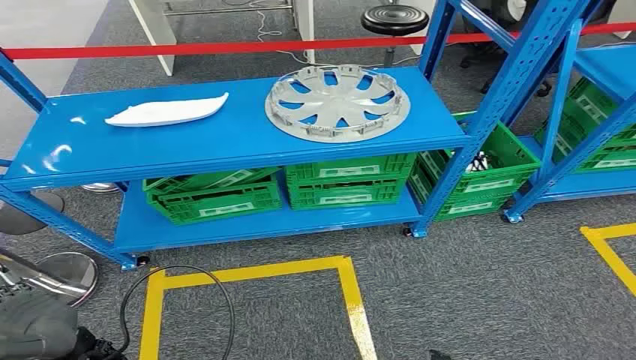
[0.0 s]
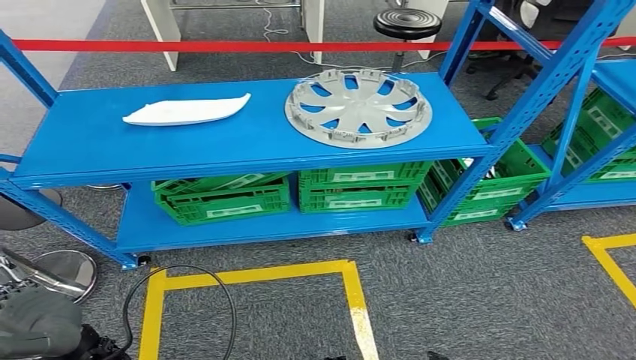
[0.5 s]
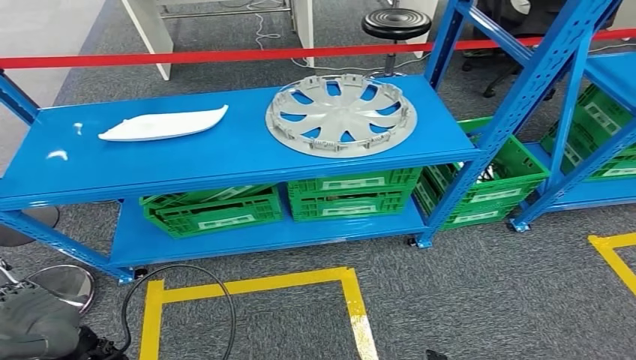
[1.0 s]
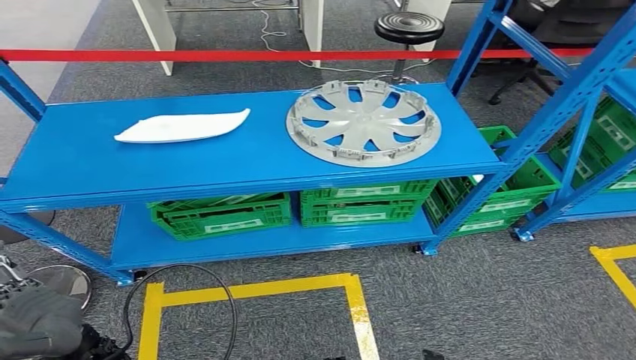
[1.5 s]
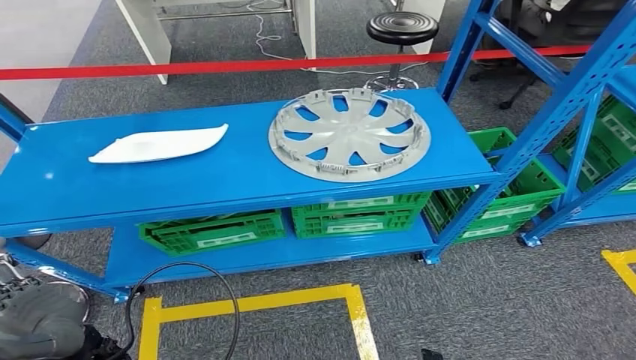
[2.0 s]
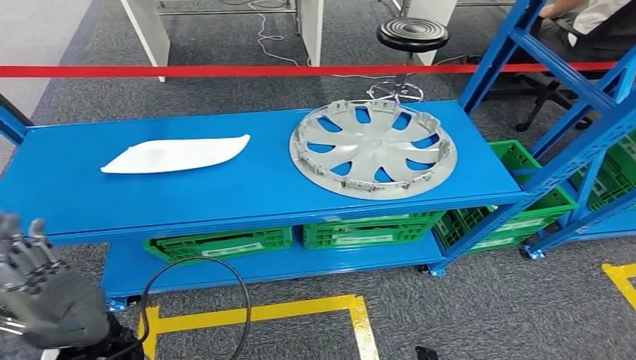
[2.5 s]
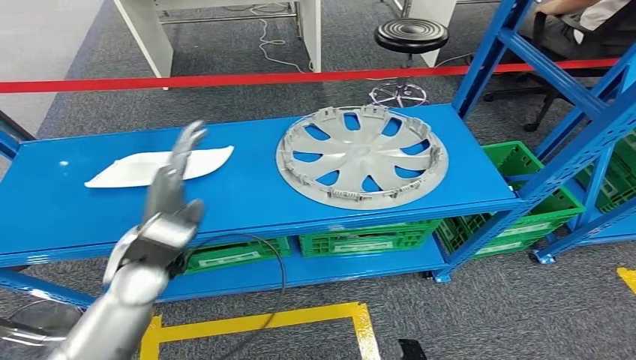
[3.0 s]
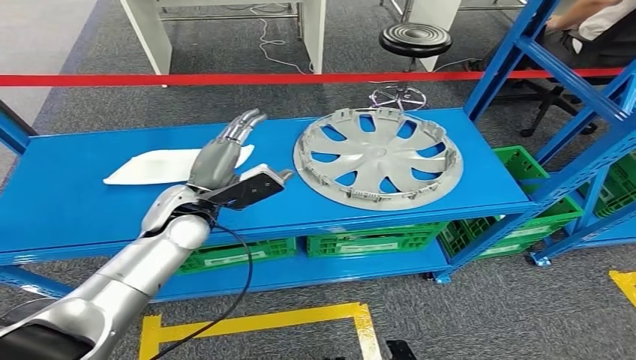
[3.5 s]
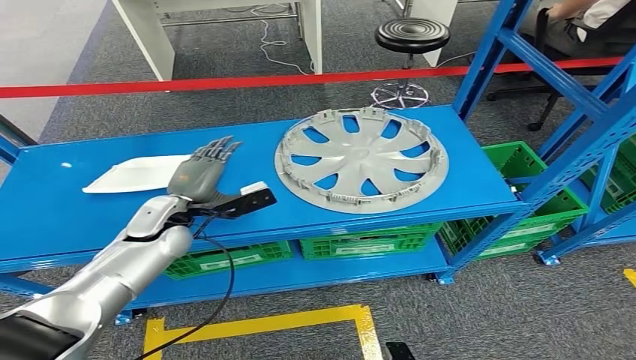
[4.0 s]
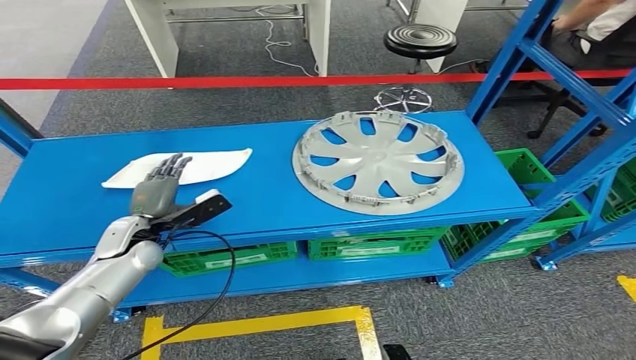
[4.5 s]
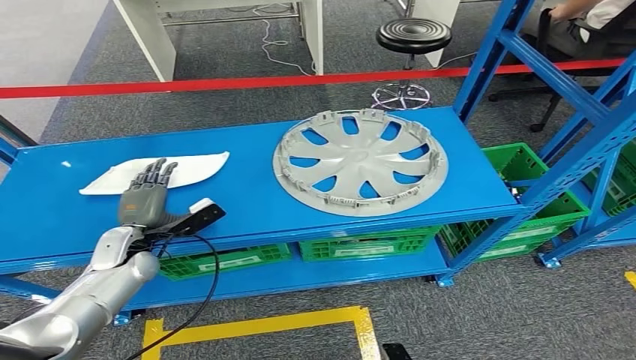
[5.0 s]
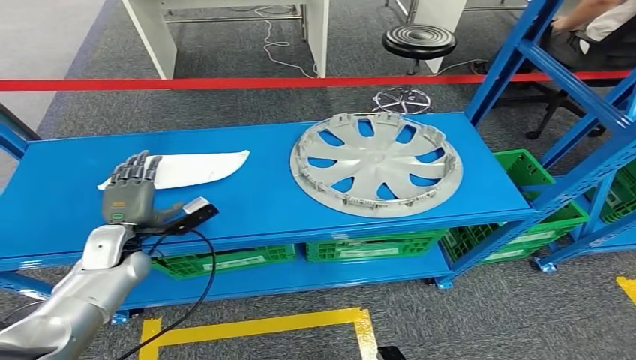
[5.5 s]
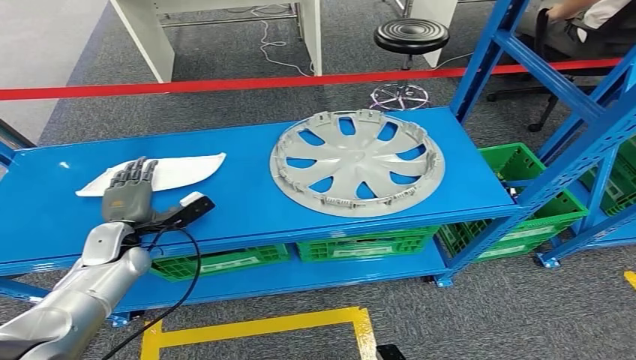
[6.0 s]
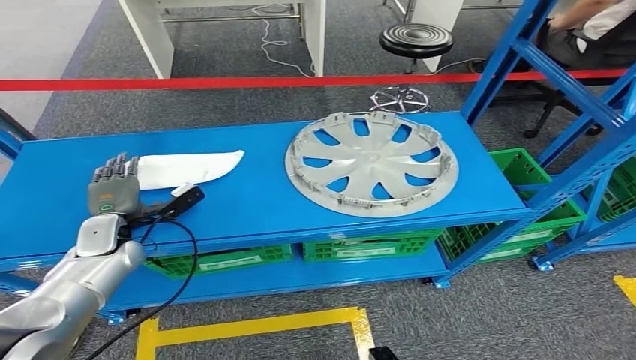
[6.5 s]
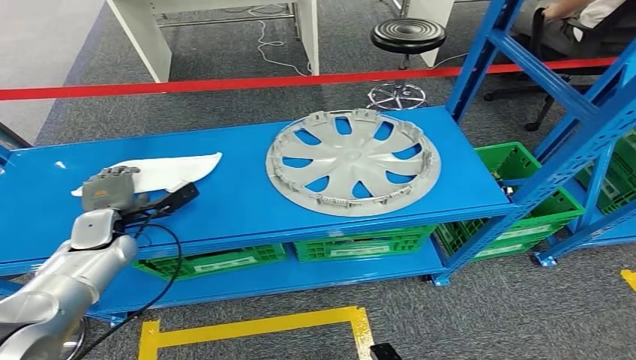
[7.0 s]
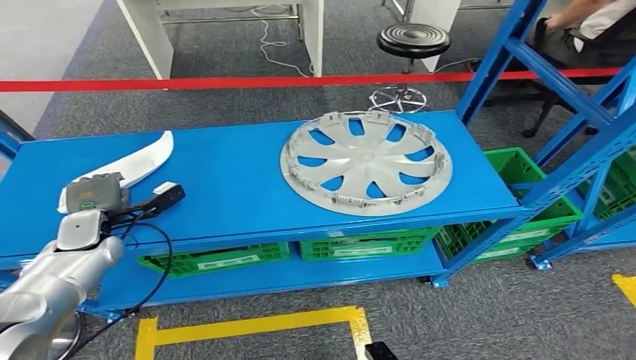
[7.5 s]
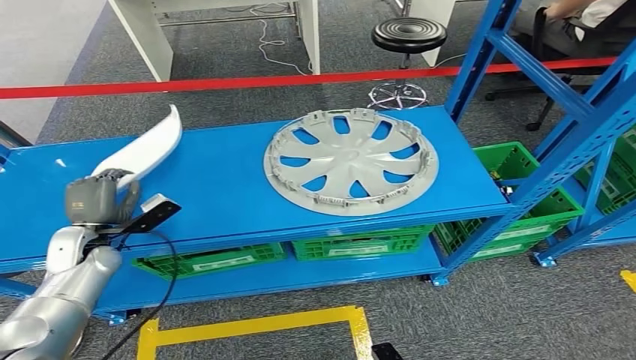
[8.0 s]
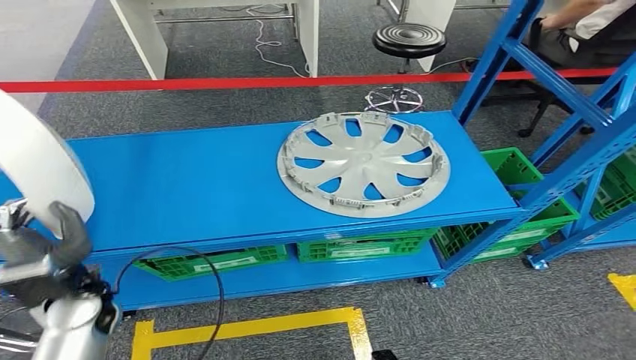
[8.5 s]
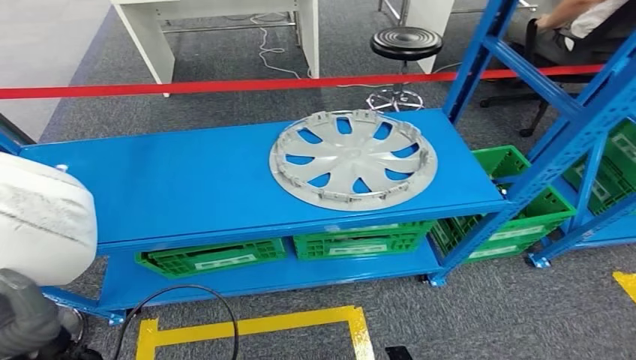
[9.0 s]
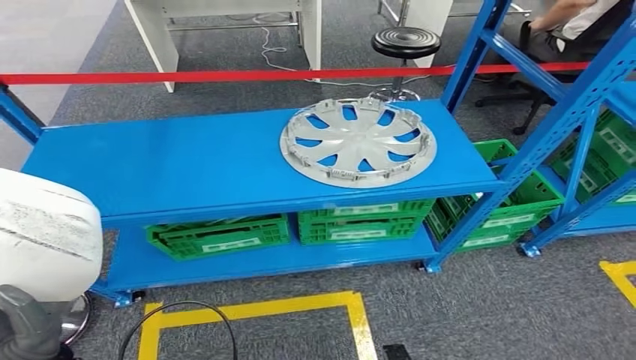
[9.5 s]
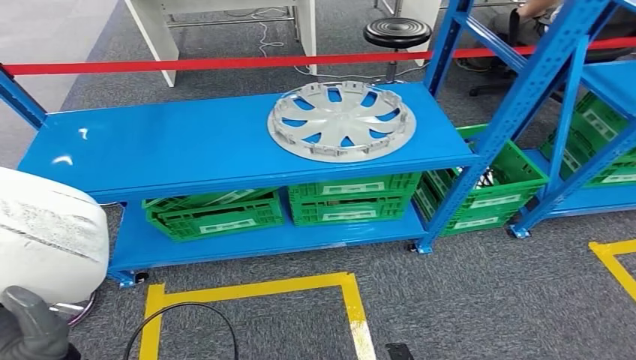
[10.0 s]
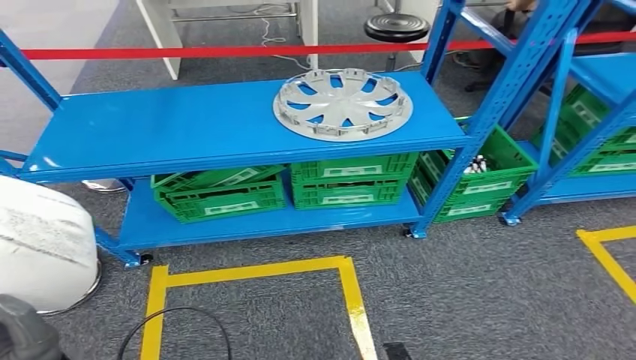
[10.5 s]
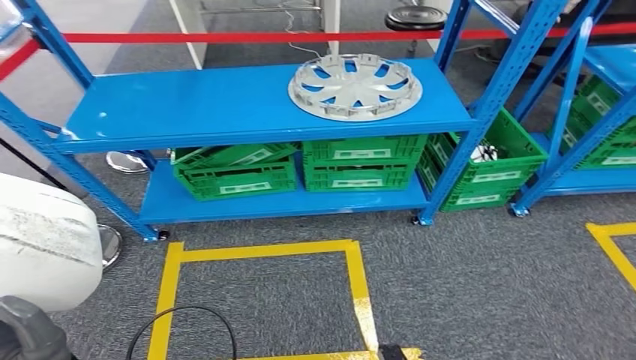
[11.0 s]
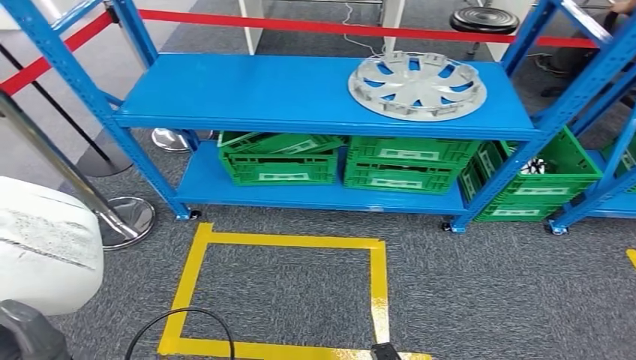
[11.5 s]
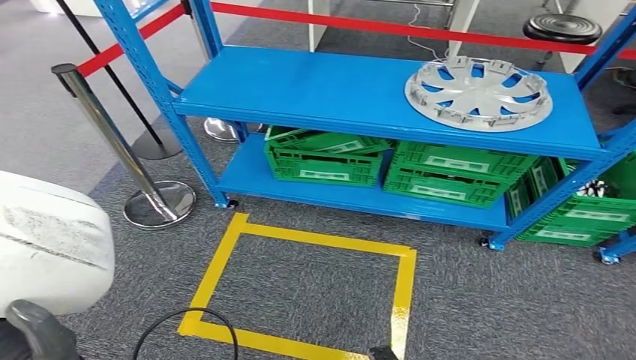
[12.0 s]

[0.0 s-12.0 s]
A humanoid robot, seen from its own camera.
Step, 0.0 to 10.0 s: Pick up the small component from the shelf.
4.0 to 6.0 s: The left hand heads to the left and downward, covering approximately 10 cm.

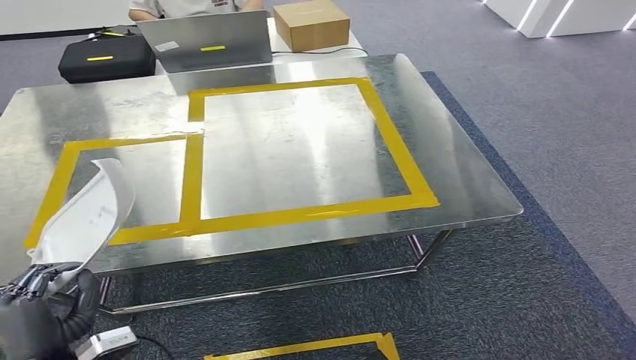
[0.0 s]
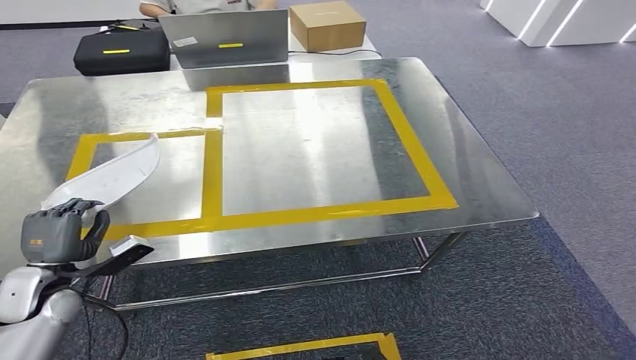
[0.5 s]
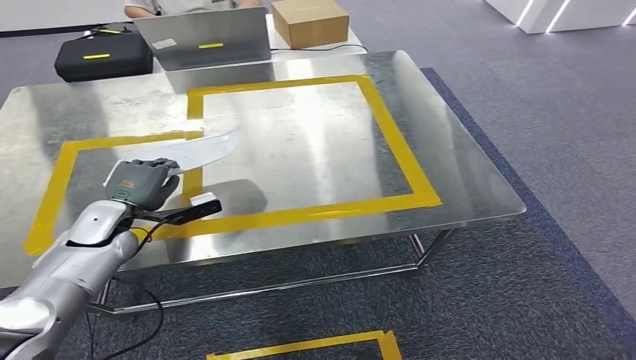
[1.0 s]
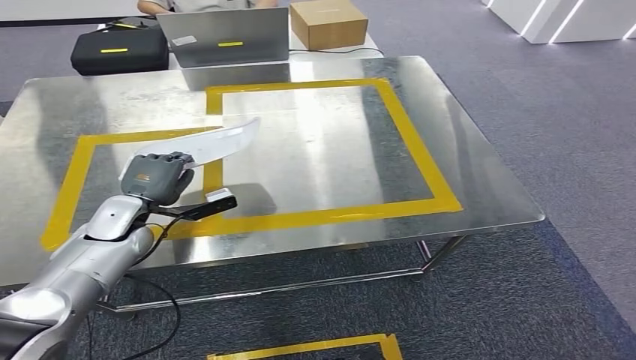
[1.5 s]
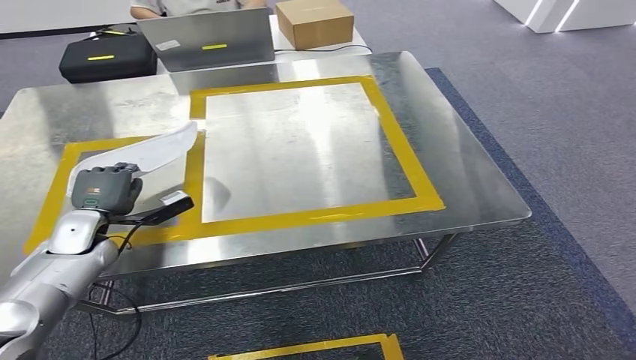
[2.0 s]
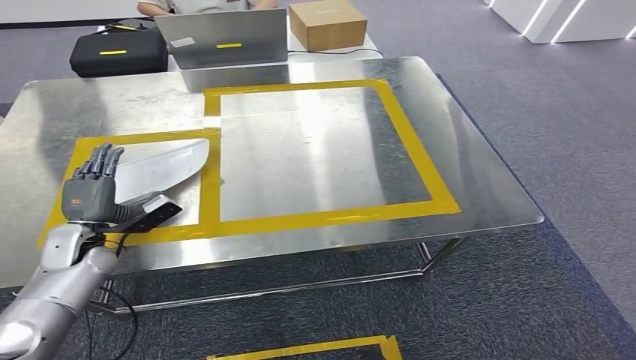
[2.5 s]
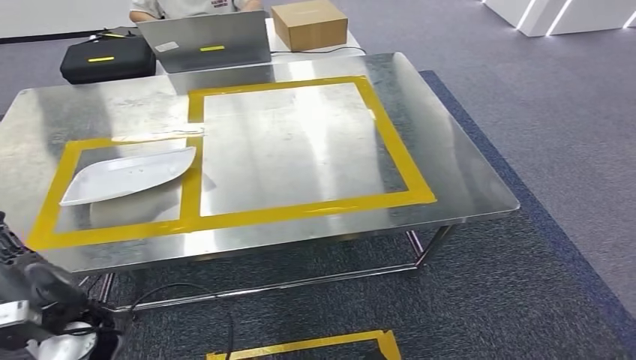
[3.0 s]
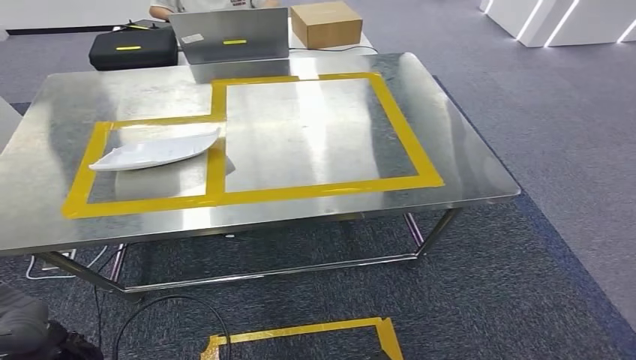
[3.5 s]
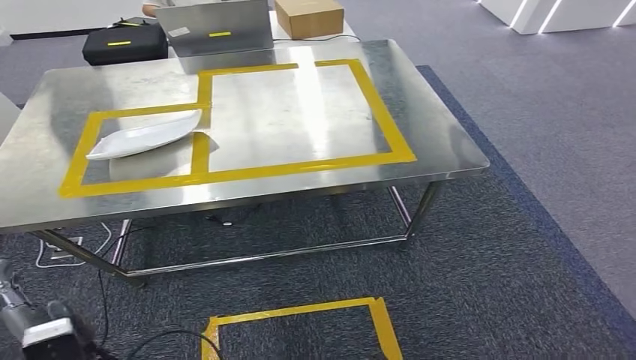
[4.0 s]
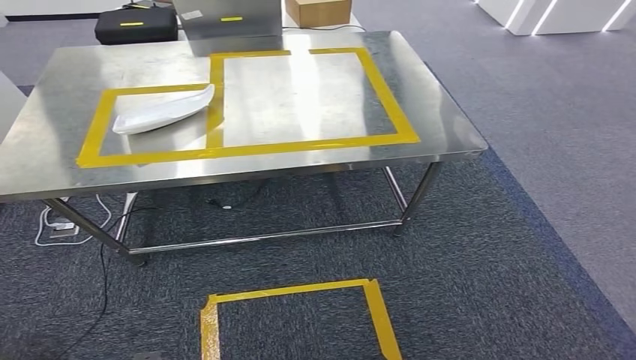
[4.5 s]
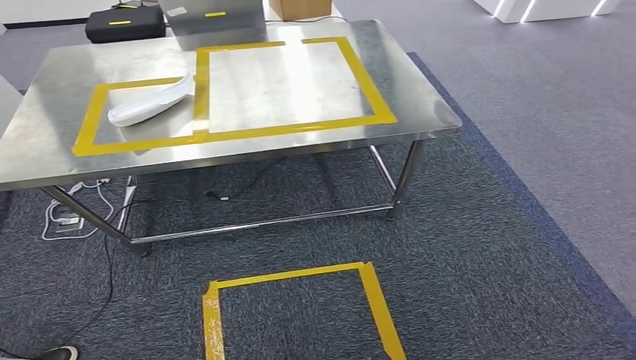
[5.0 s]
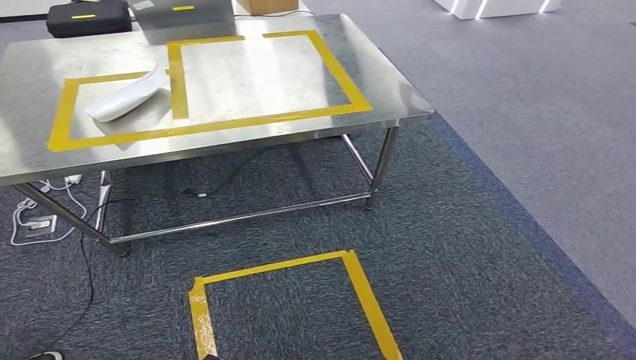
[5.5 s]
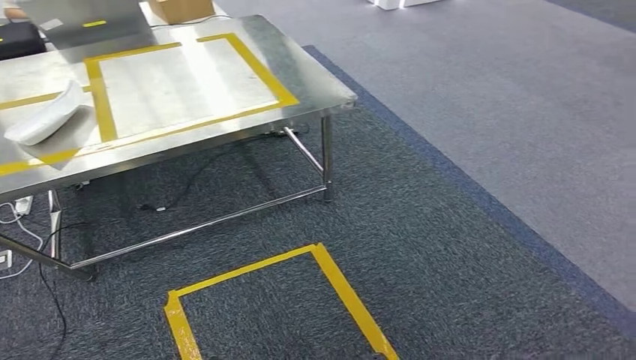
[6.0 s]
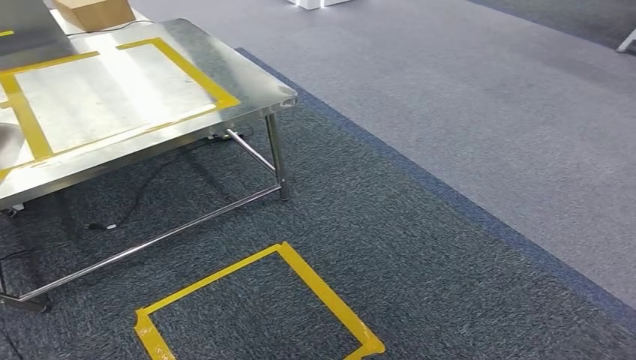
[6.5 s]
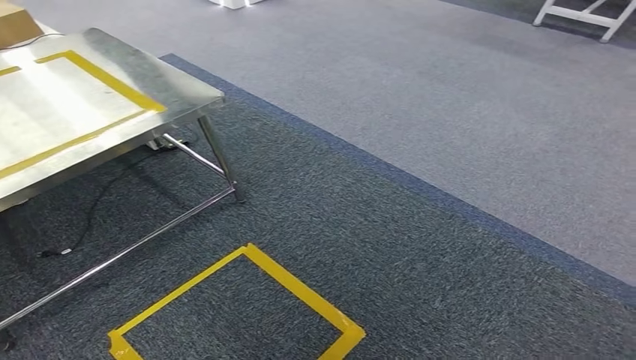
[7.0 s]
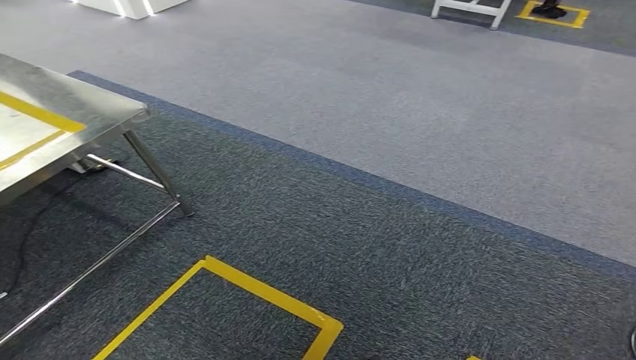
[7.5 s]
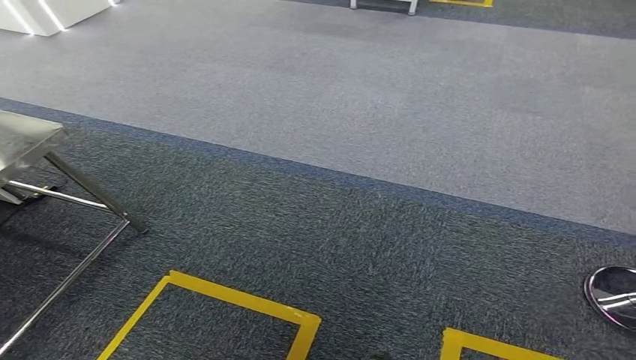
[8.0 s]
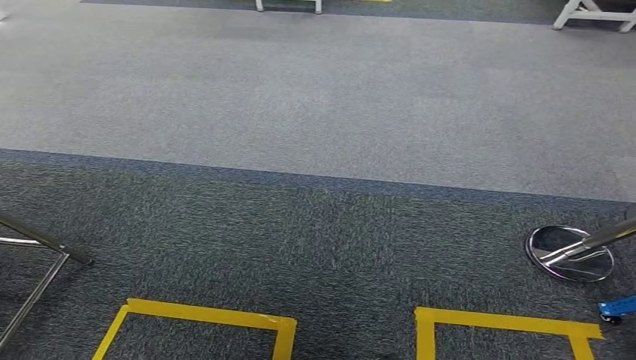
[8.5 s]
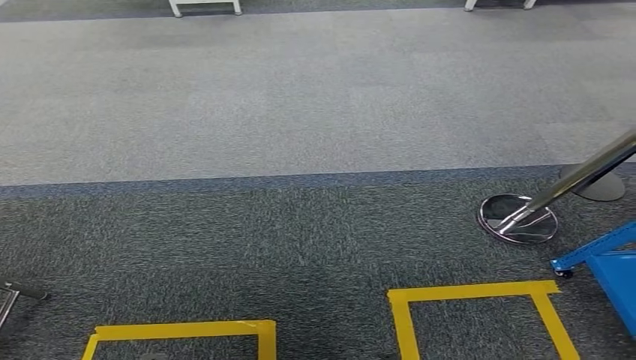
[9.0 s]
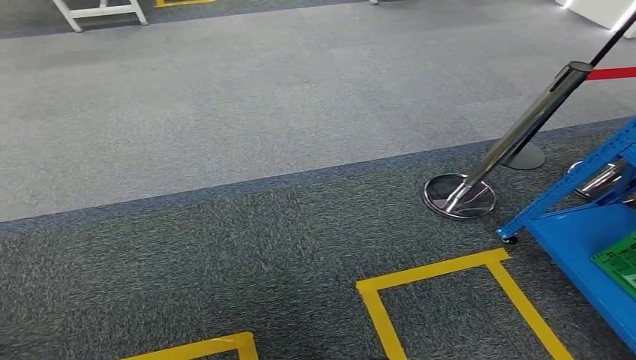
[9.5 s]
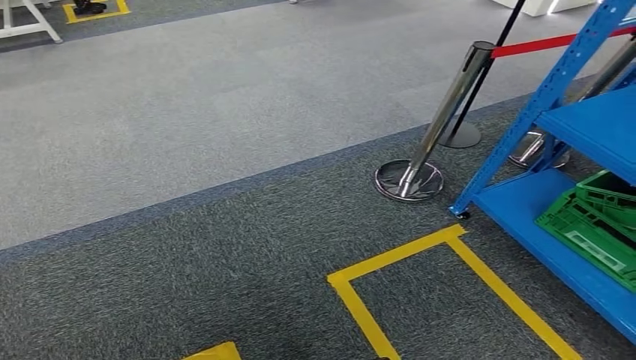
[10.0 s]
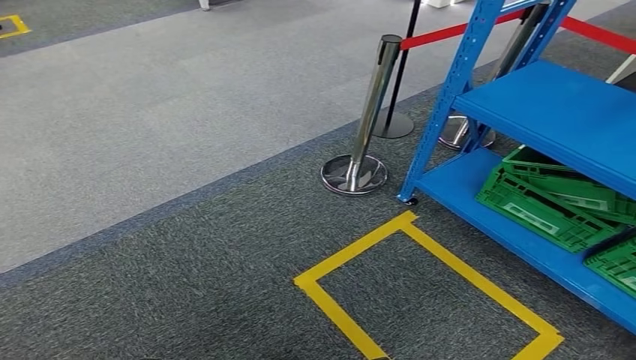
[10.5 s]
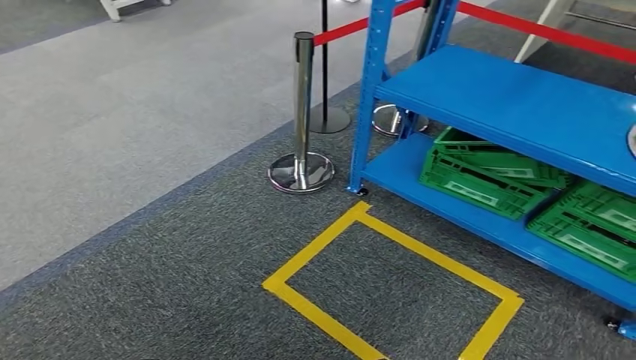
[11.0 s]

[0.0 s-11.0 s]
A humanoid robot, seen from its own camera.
Step, 0.5 to 5.5 s: Insert the small component into the corresponding slot on the workbench.
0.0 to 2.0 s: The left hand goes some 25 cm forward.
